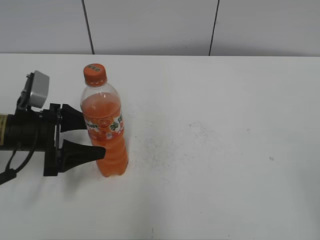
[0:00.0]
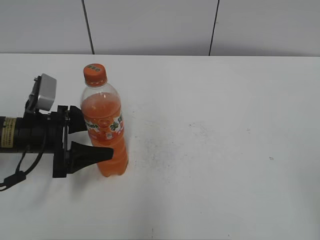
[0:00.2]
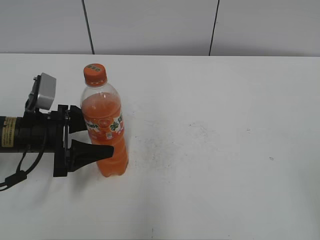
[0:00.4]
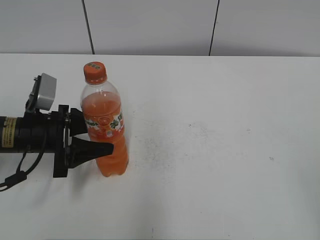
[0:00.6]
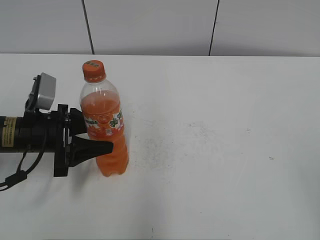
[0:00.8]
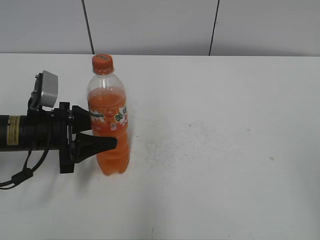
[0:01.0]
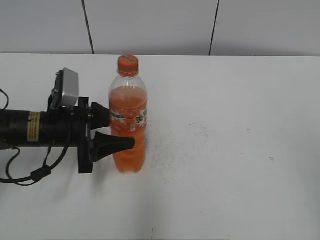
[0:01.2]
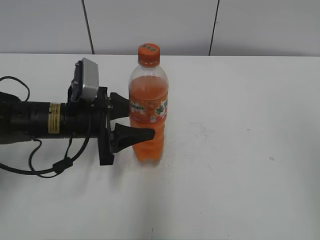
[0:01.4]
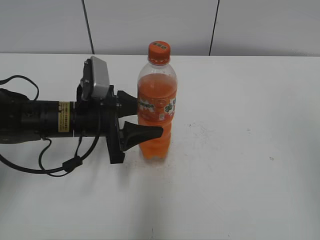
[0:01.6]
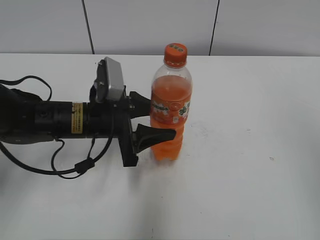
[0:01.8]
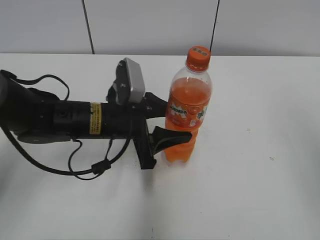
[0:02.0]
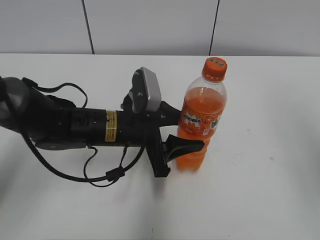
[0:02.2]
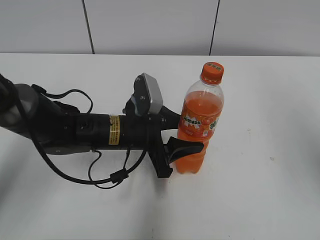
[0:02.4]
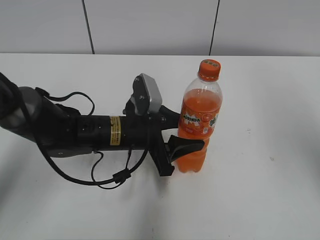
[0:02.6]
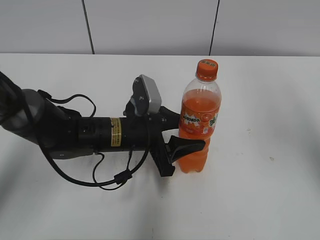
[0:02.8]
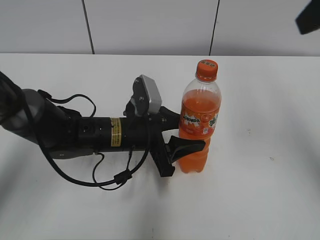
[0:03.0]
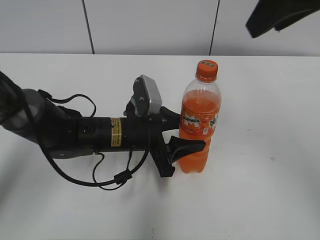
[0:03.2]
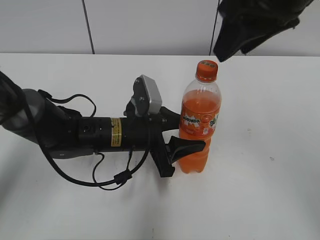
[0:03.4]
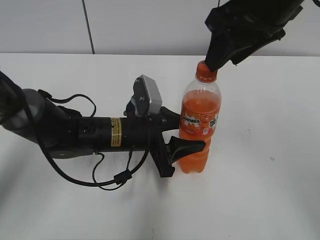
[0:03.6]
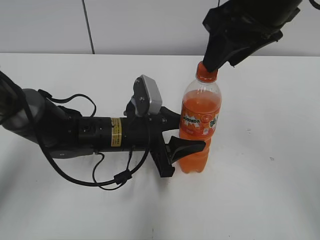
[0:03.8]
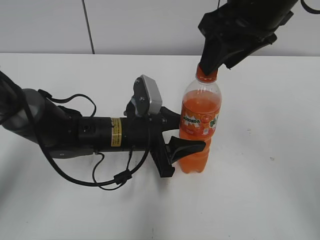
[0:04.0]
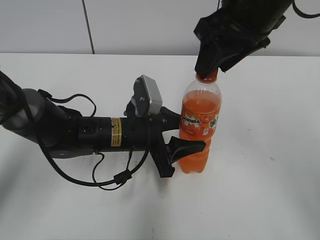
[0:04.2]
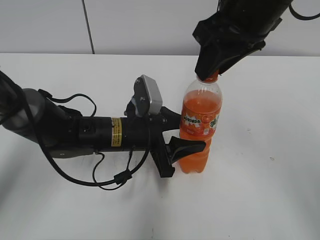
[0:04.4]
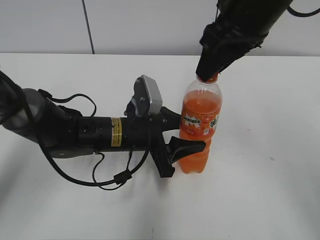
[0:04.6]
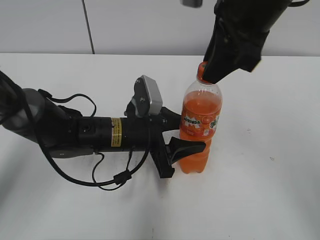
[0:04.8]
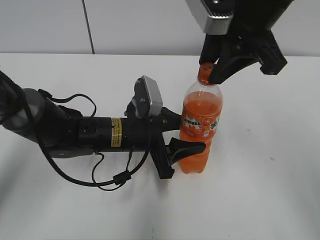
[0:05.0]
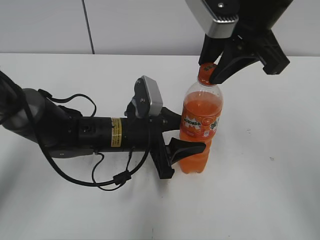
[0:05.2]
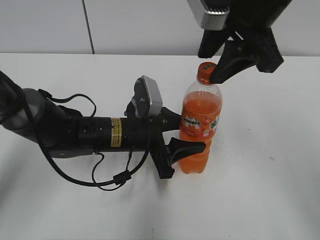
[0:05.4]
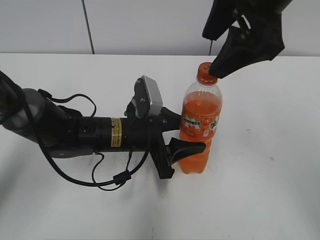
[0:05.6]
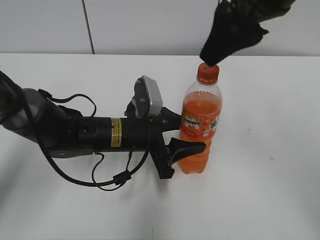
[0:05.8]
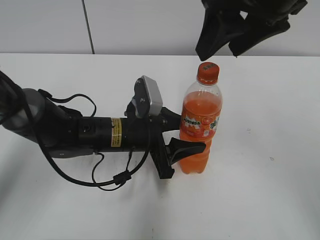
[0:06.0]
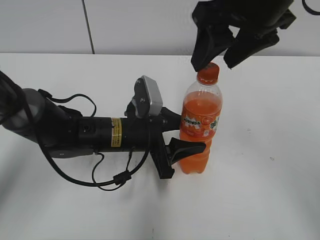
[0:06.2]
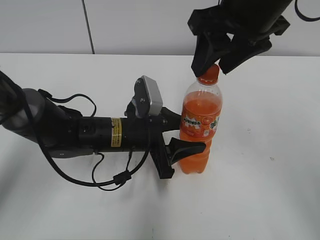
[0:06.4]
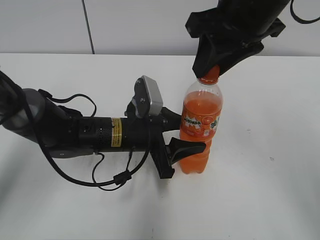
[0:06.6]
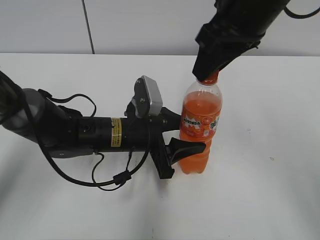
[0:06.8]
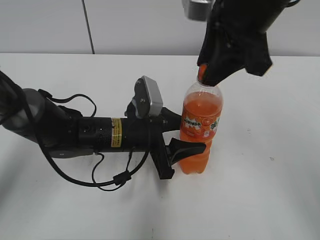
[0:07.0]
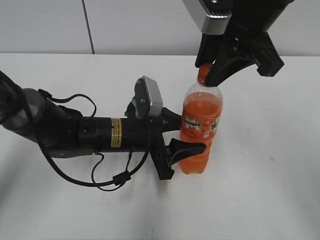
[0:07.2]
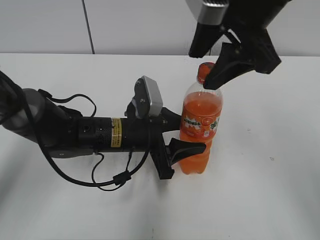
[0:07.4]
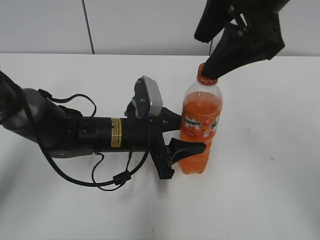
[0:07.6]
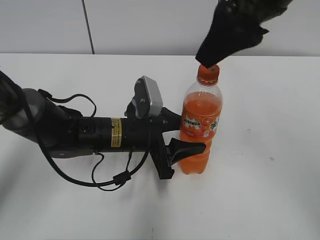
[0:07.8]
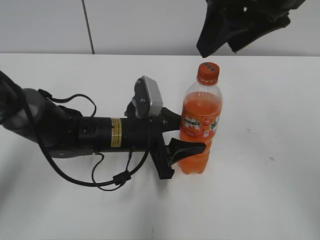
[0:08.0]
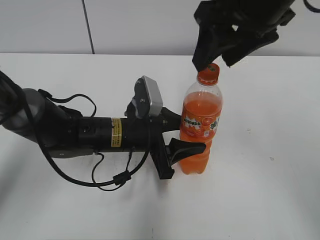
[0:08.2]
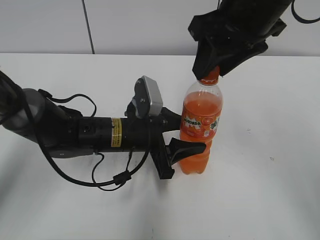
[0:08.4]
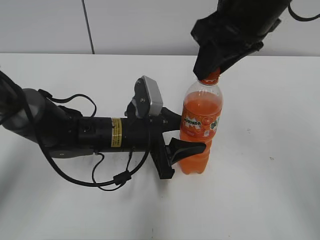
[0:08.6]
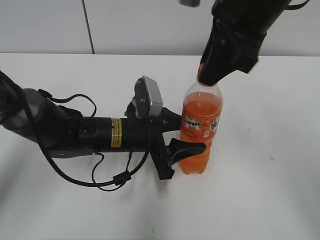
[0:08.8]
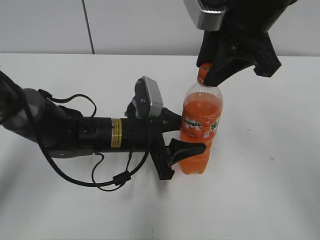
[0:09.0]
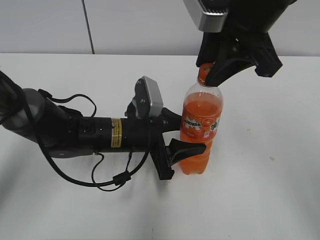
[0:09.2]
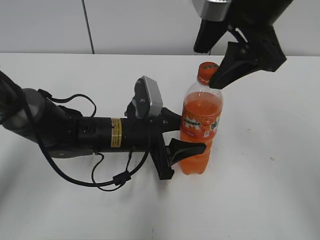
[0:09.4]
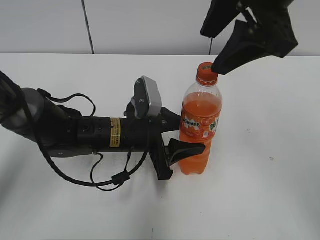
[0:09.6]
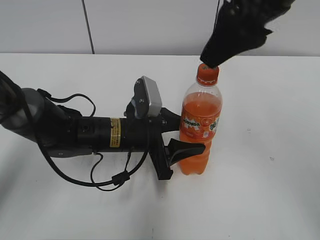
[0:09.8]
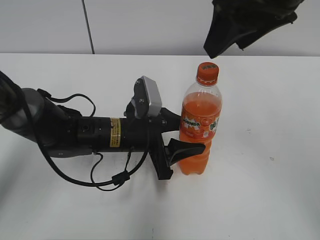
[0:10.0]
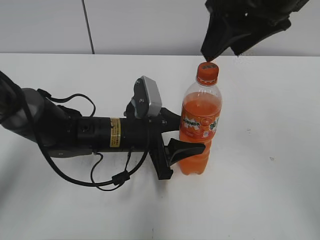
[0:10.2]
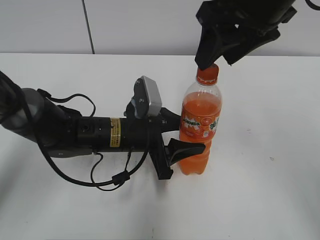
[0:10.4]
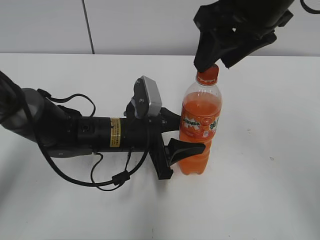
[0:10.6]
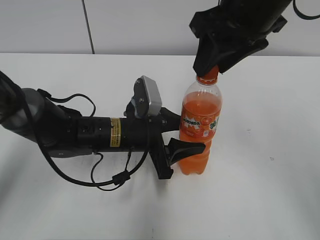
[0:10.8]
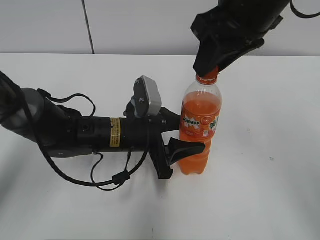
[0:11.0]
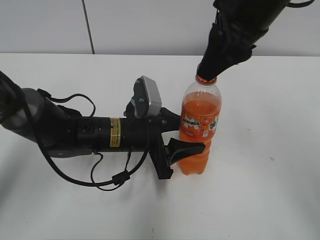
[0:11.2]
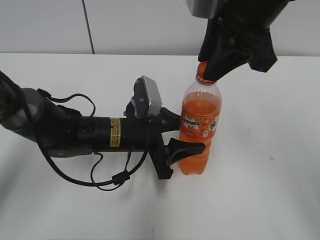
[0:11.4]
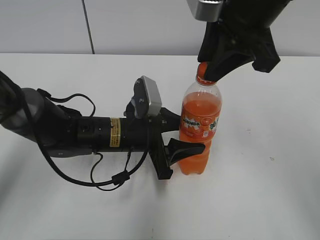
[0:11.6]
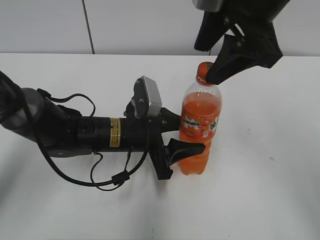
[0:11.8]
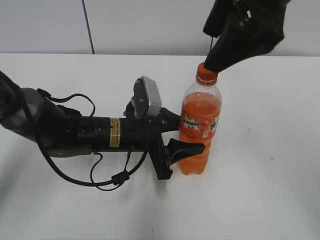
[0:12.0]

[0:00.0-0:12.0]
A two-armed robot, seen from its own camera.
Step, 0:01.0 to 0:02.8: Move the Mirinda from left to right.
0:00.0 to 0:01.6: The left gripper is displaced to the right by roughly 10 cm, and closes its fingers; the right gripper moves upward and forward, some 10 cm.
0:01.6 to 0:03.0: The left gripper goes some 10 cm to the right. Meanwhile the right gripper goes about 20 cm forward, and closes.
0:03.0 to 0:04.4: The right gripper is displaced to the left, downward and forward by approximately 15 cm.
0:04.4 to 0:06.0: The right gripper opens up.
0:06.0 to 0:07.6: The right gripper closes and opens again.
0:07.6 to 0:09.0: The right gripper closes.
0:09.0 to 0:10.4: The right gripper opens.
0:10.4 to 0:12.0: The right gripper opens up.

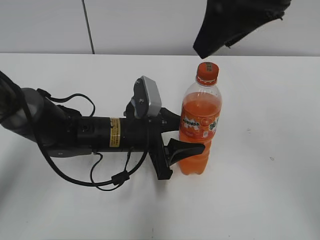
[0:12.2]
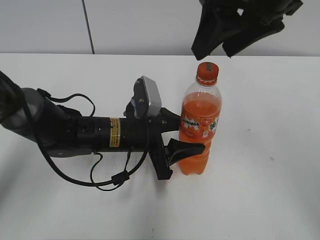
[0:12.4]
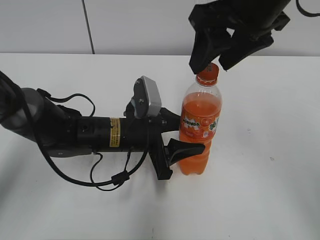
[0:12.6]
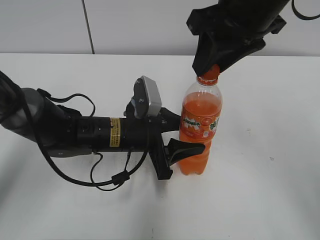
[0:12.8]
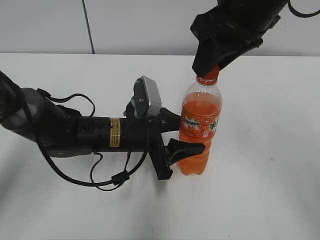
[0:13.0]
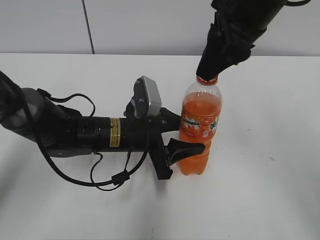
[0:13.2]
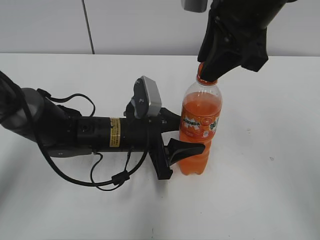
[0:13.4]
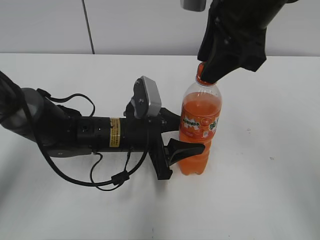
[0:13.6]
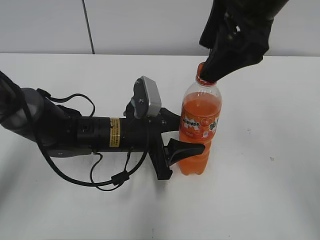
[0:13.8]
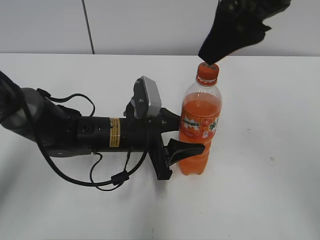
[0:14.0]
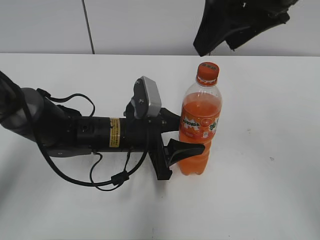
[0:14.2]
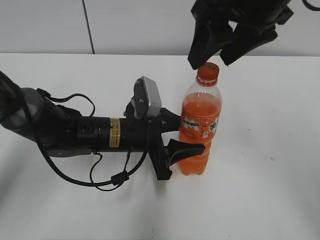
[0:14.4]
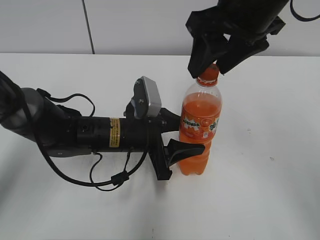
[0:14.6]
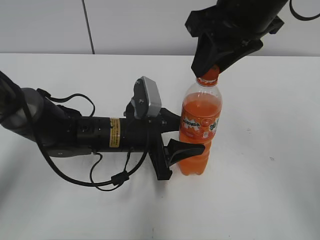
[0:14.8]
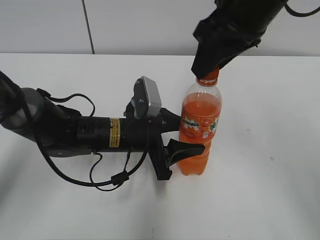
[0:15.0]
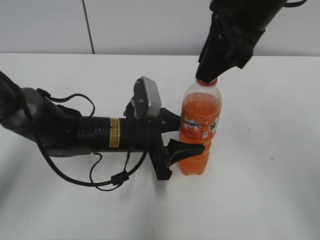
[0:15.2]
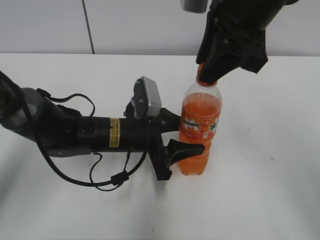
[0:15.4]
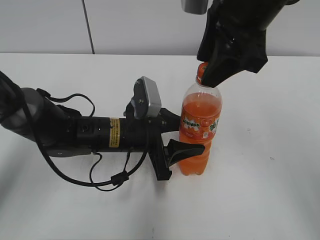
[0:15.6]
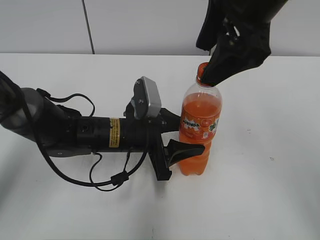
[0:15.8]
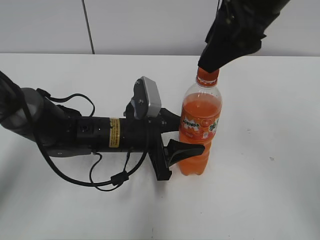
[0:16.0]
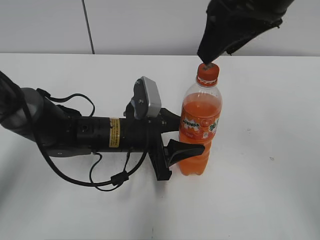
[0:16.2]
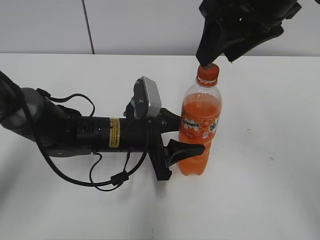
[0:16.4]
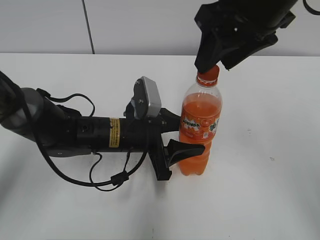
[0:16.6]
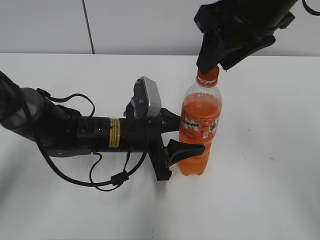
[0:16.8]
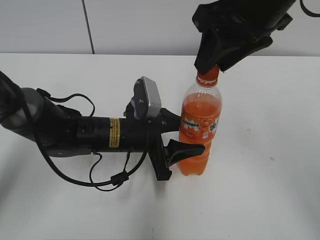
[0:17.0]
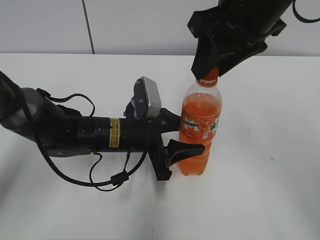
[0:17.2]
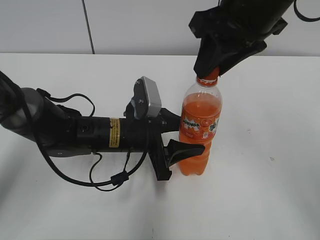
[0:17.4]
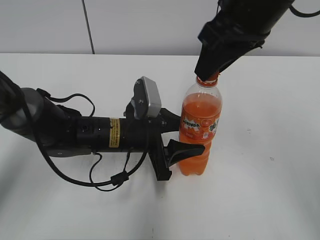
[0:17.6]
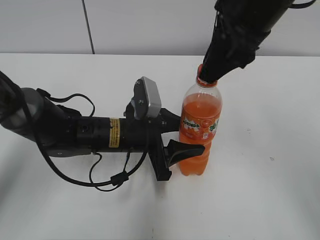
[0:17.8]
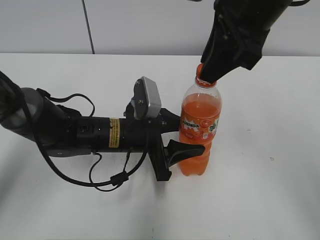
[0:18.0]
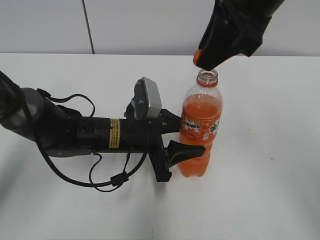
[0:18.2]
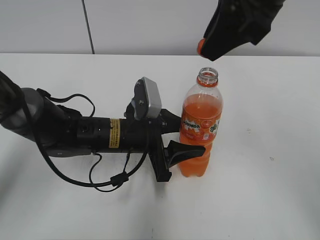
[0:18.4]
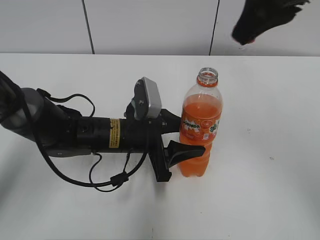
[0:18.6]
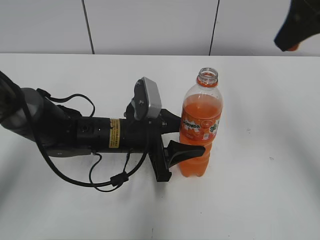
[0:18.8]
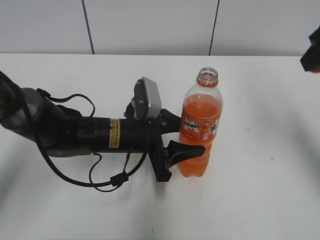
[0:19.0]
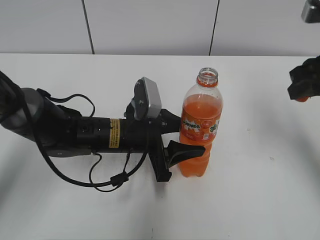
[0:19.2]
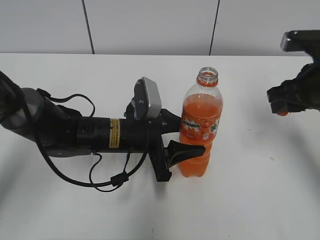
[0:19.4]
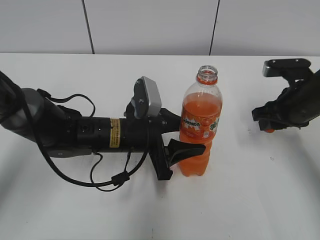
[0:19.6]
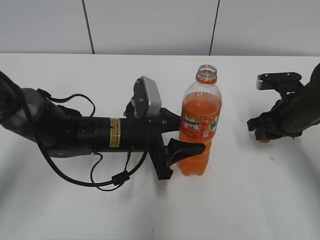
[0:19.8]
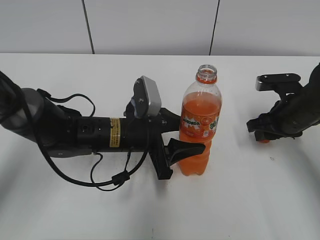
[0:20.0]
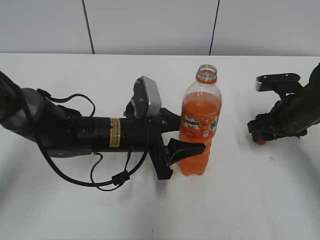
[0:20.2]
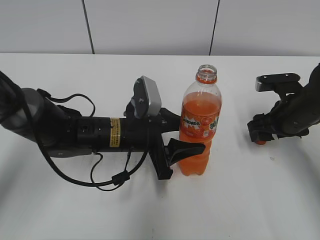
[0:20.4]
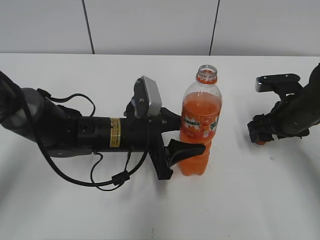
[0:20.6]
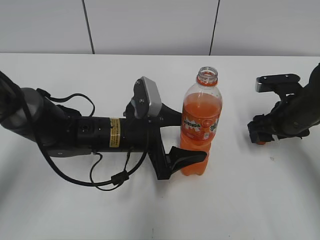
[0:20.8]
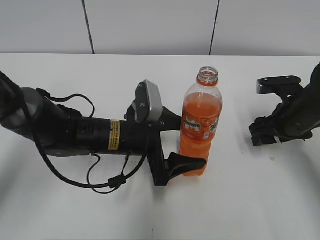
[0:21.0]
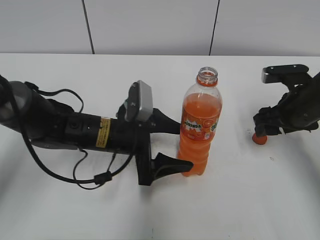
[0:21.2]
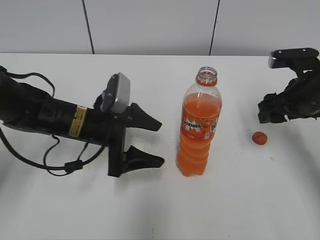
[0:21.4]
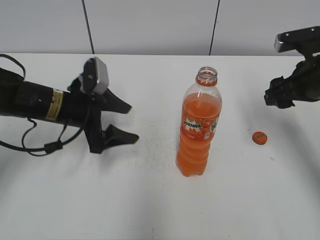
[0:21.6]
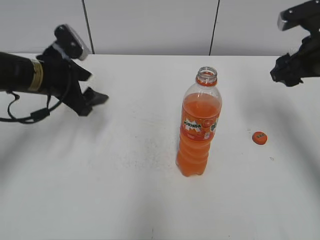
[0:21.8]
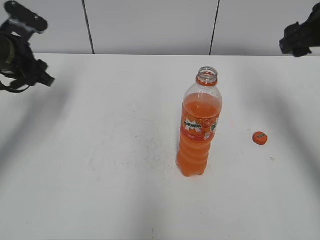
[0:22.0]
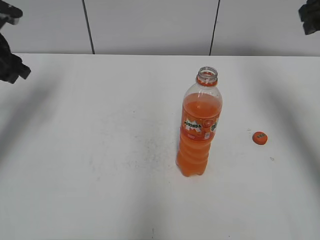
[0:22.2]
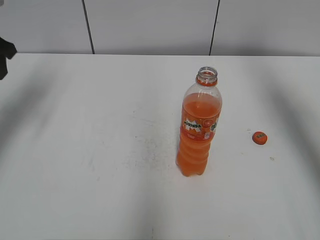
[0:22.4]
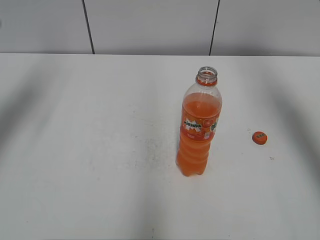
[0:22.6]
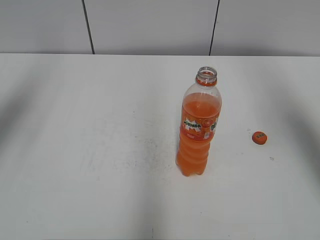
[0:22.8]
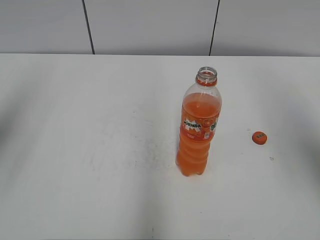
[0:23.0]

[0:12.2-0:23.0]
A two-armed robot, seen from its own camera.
0:12.2 to 0:13.8: The right gripper closes and opens again.
0:13.8 to 0:15.2: The right gripper closes.
0:15.2 to 0:16.8: The right gripper opens and closes again.
0:18.4 to 0:20.0: The right gripper goes about 30 cm downward and to the right.
0:20.0 to 0:21.4: The left gripper moves to the left, roughly 5 cm, and opens up, while the right gripper travels upward by roughly 5 cm, and opens.
0:21.4 to 0:23.0: The right gripper travels upward and backward by some 25 cm. The left gripper shifts about 35 cm upward and to the left, and closes.
